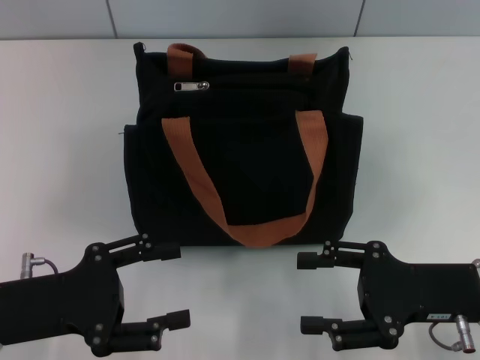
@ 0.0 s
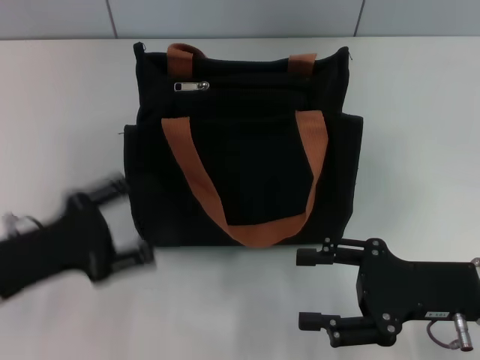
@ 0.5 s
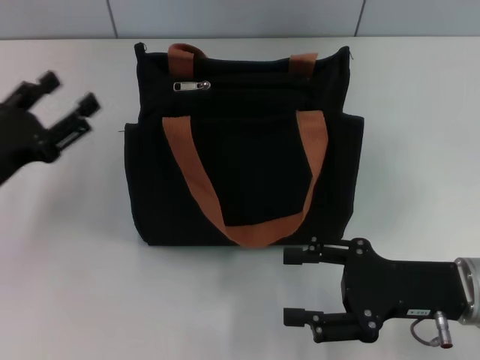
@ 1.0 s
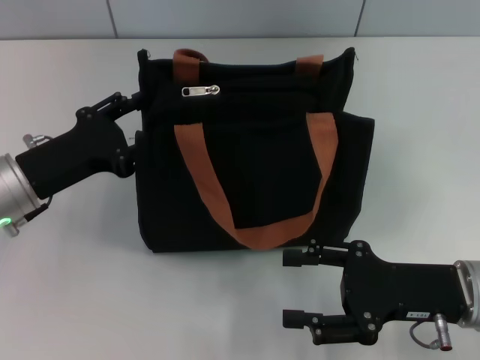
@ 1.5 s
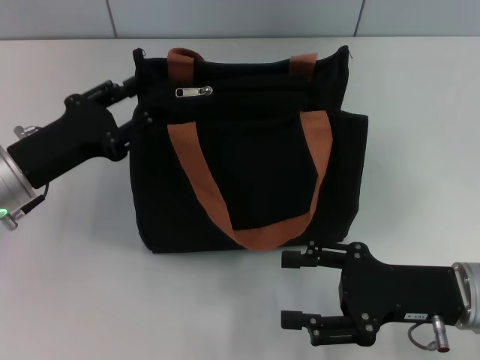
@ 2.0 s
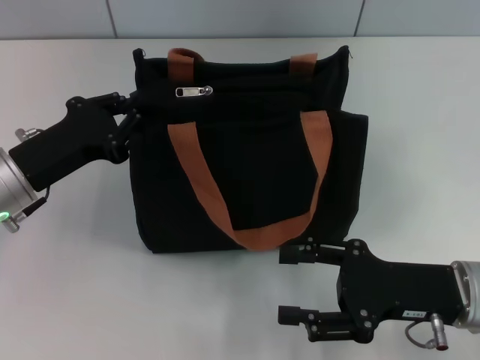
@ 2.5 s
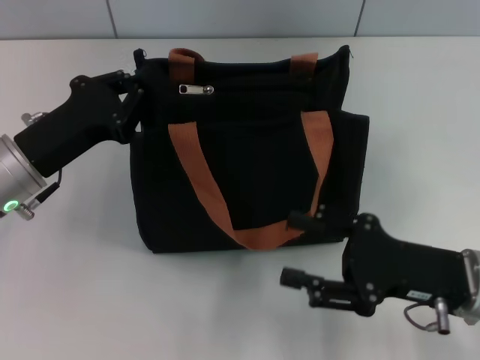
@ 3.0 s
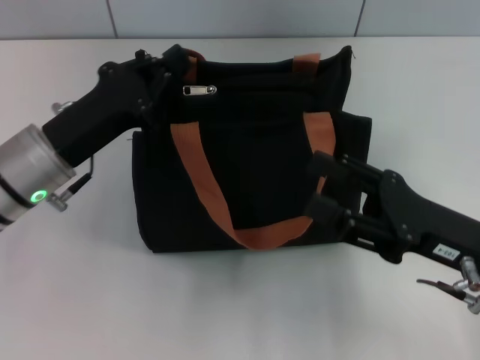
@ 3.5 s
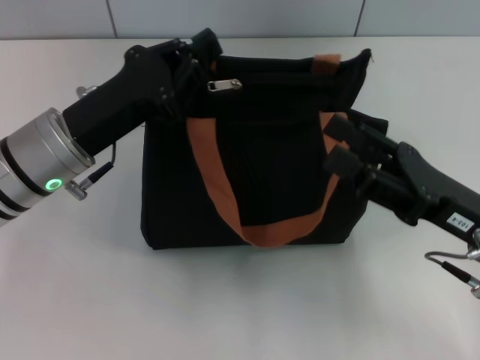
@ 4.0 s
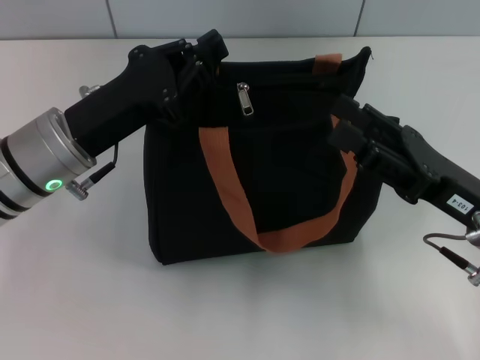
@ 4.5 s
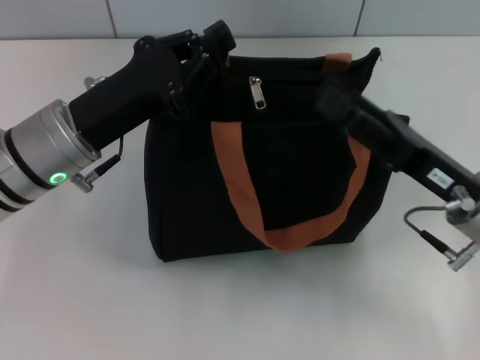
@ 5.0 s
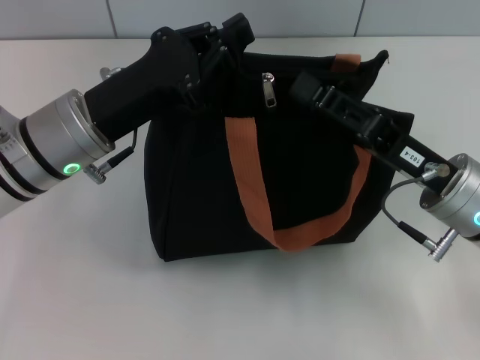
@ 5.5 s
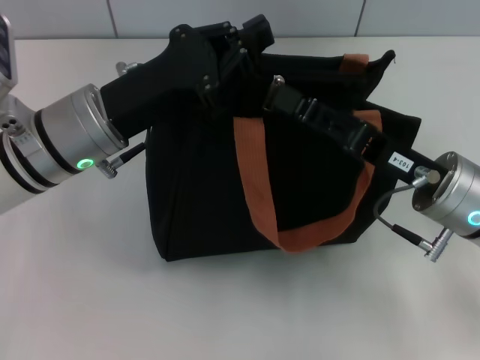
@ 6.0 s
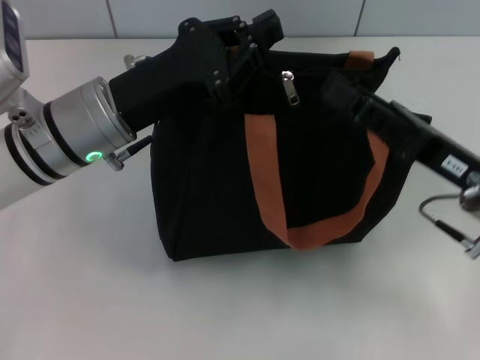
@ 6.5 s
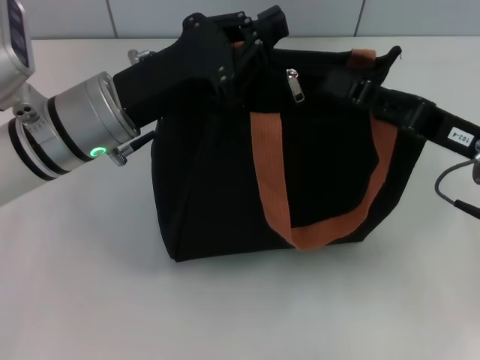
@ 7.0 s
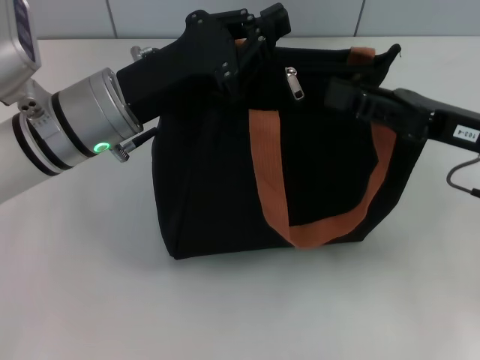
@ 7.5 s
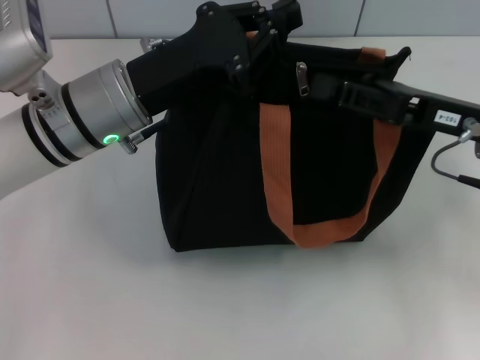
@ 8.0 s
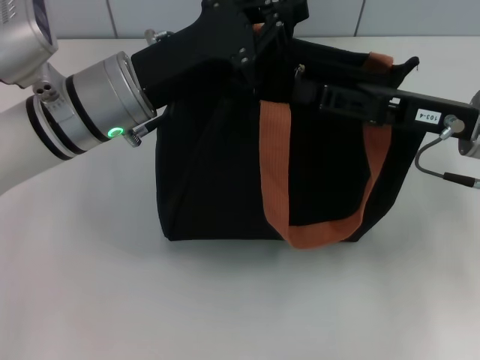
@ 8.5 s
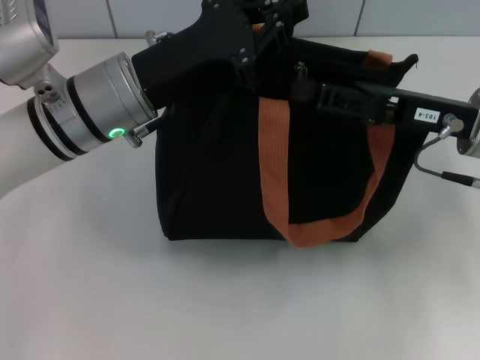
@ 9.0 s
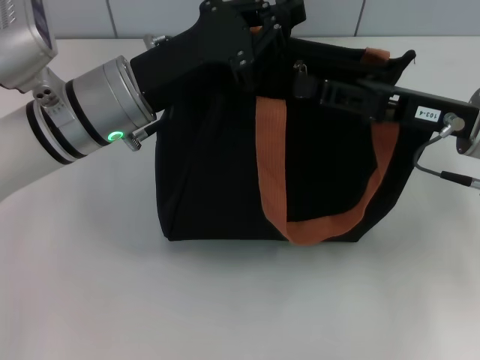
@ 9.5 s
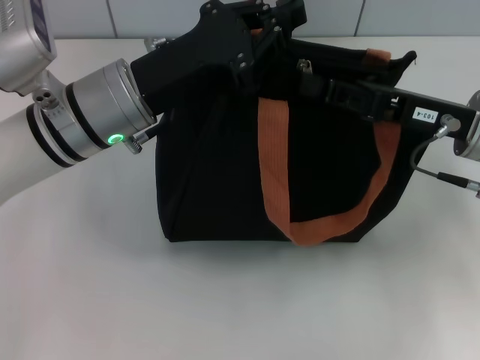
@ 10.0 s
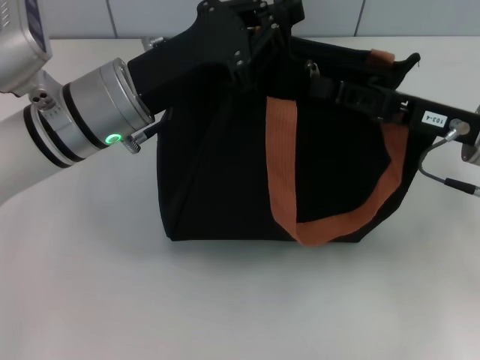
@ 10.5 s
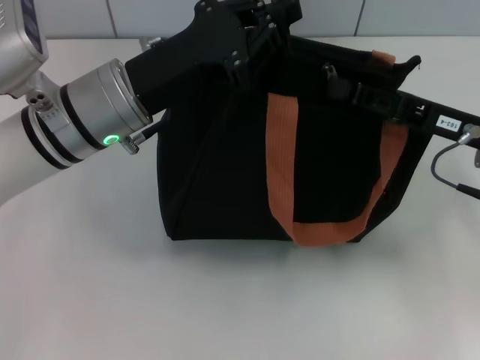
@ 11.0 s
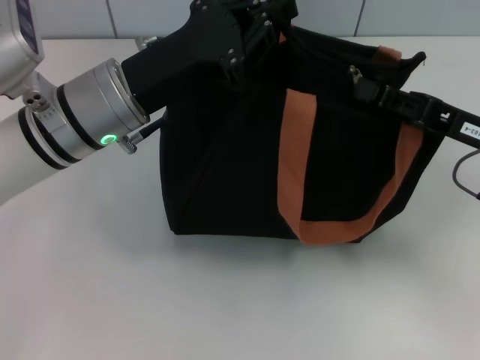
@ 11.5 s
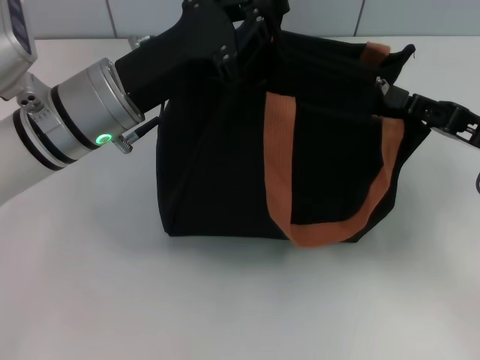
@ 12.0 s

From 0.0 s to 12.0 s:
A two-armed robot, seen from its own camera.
From 0.0 s to 2.0 s: The left gripper goes about 10 cm forward.
From 2.0 s to 4.0 s: The left gripper is displaced to the right by approximately 5 cm, and closes its fingers.
From 4.0 s to 6.0 s: The right gripper shifts by approximately 5 cm, and closes.
From 6.0 s to 8.0 s: The right gripper goes some 5 cm to the right.
From 8.0 s to 10.0 s: The right gripper closes.
From 10.0 s to 12.0 s: The right gripper moves to the right, approximately 5 cm.

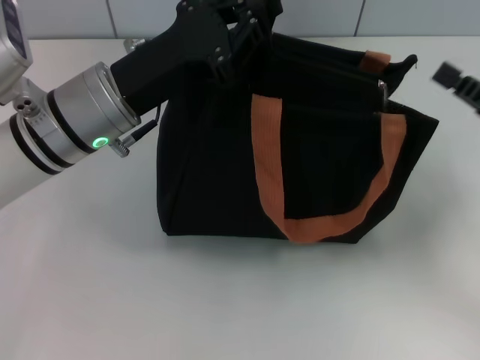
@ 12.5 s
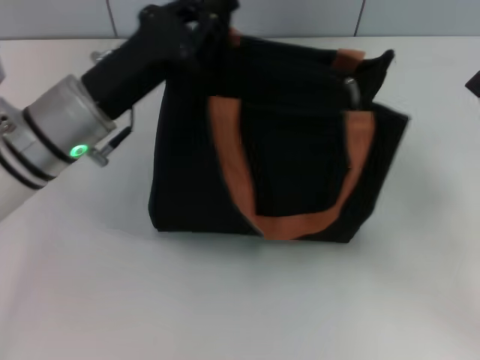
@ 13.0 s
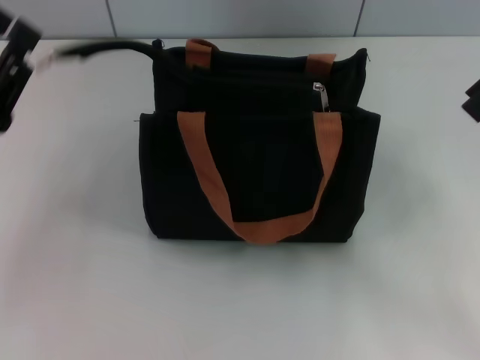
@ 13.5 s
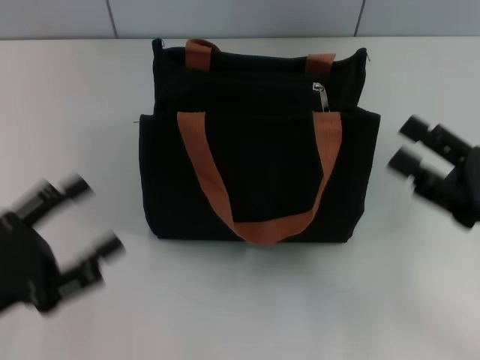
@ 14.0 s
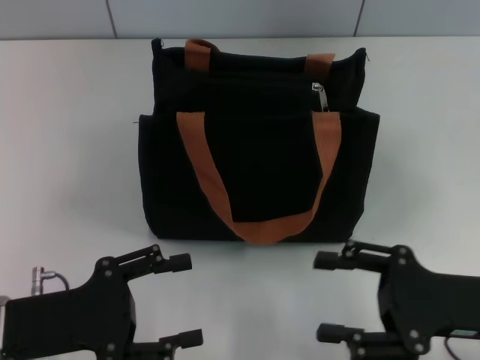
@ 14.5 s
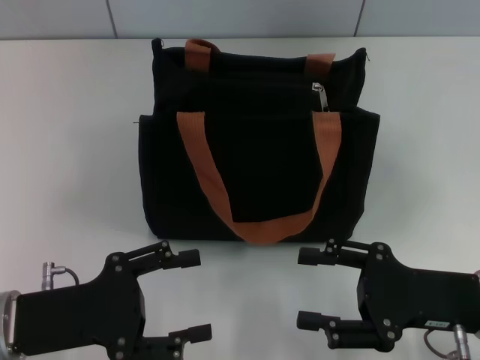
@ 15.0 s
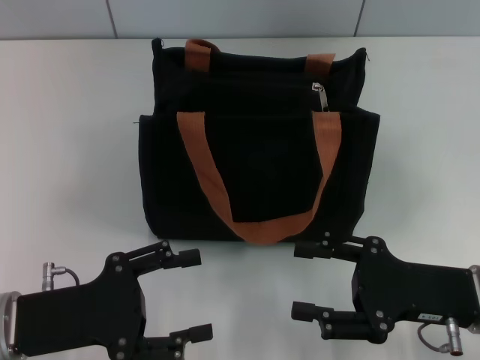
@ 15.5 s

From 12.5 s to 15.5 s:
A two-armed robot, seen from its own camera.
Step, from 12.5 s to 13.0 s: Grab the zipper with your left hand.
From 12.5 s to 14.0 s: The left gripper is displaced backward and to the left by roughly 20 cm, and opens its fingers; the right gripper ends up roughly 5 cm from where it was, and opens its fingers.
From 14.0 s to 15.5 s: The left gripper shifts roughly 5 cm to the right. The right gripper moves to the left, about 5 cm.

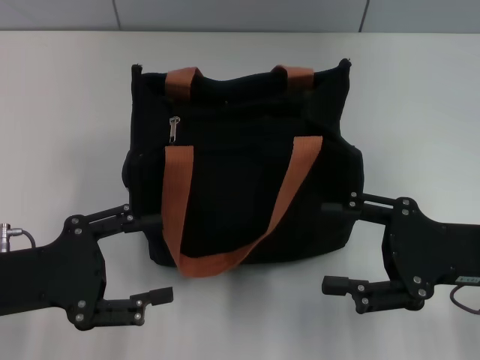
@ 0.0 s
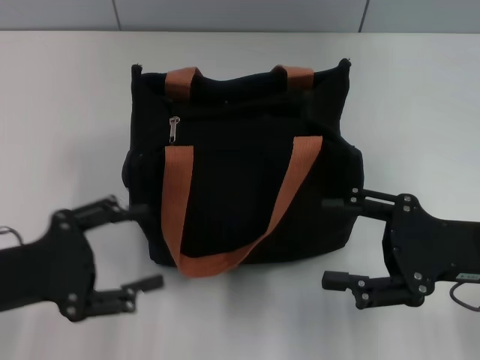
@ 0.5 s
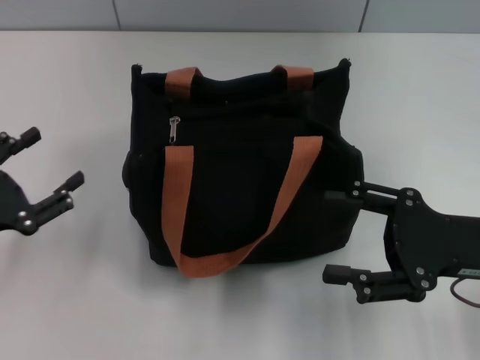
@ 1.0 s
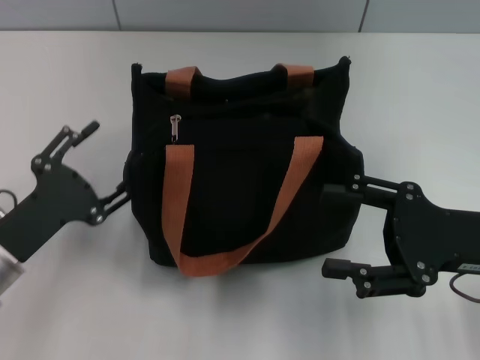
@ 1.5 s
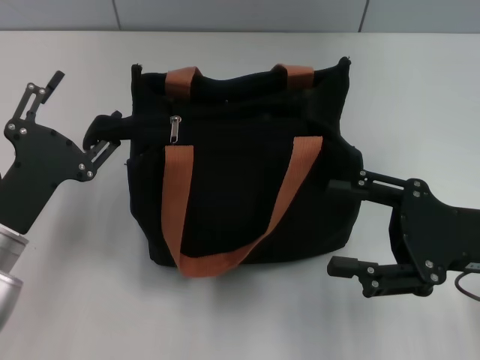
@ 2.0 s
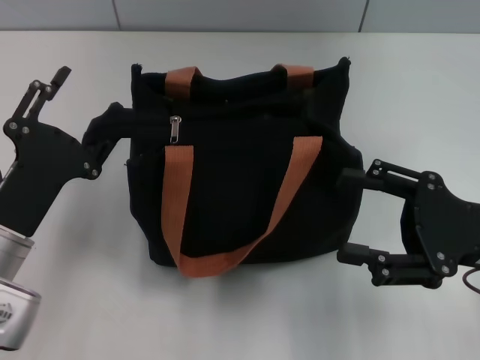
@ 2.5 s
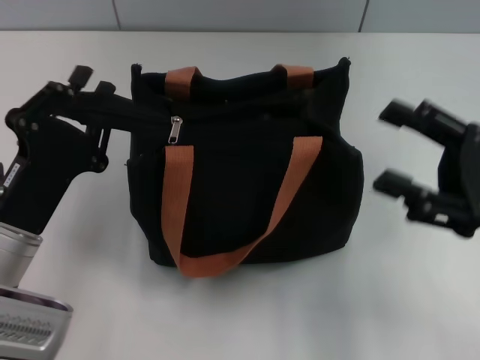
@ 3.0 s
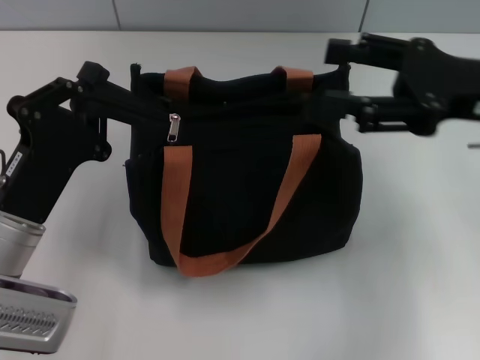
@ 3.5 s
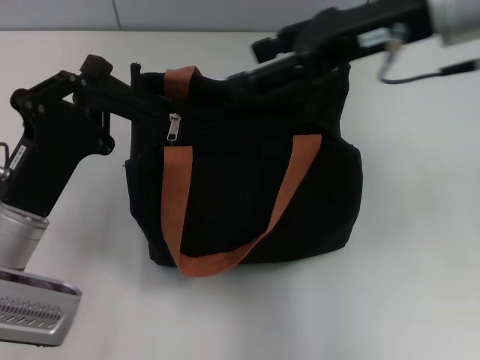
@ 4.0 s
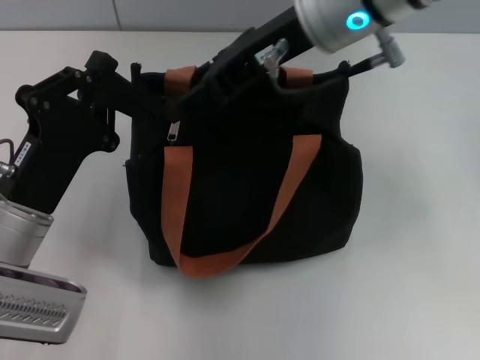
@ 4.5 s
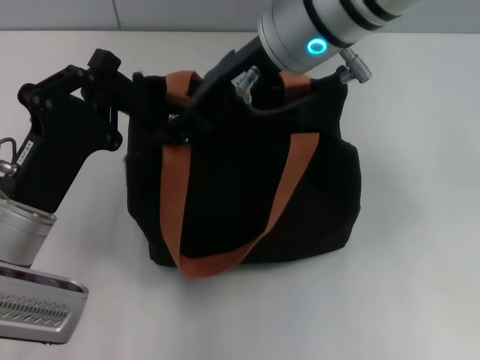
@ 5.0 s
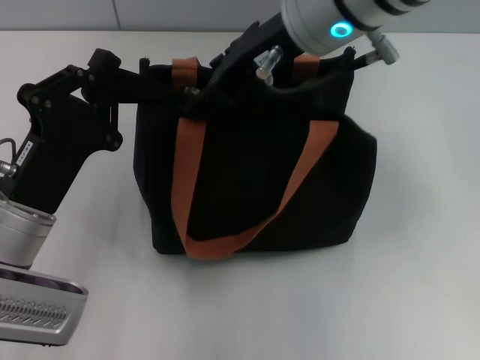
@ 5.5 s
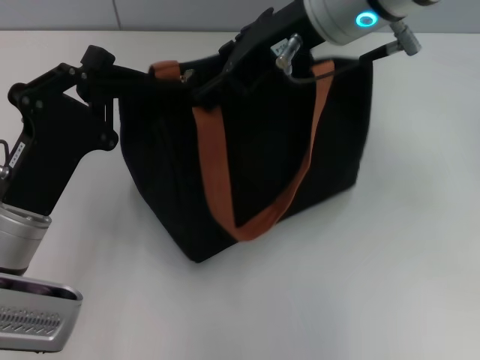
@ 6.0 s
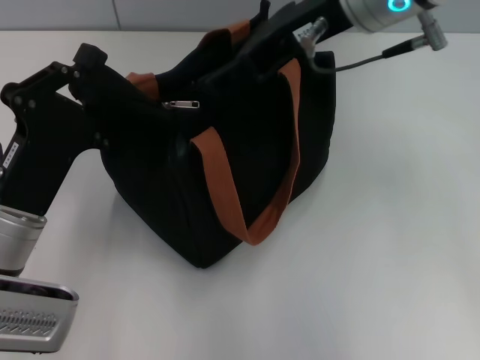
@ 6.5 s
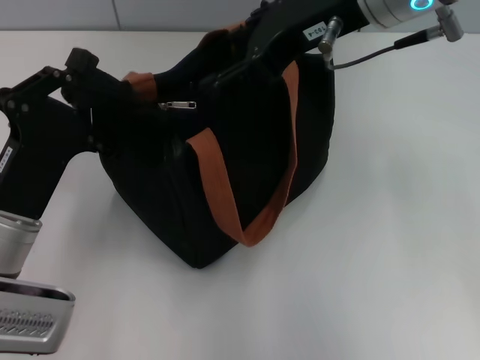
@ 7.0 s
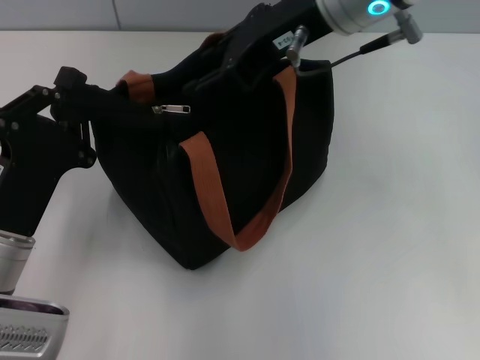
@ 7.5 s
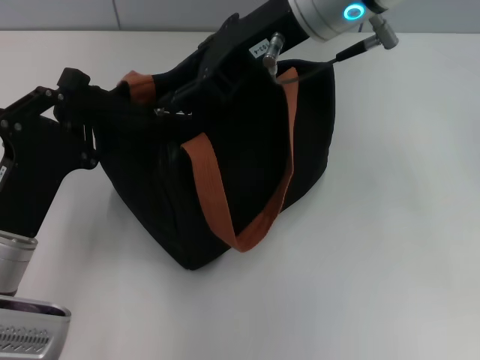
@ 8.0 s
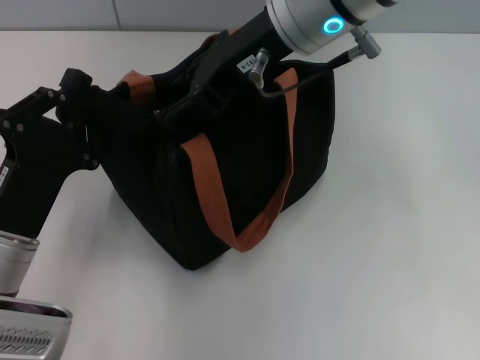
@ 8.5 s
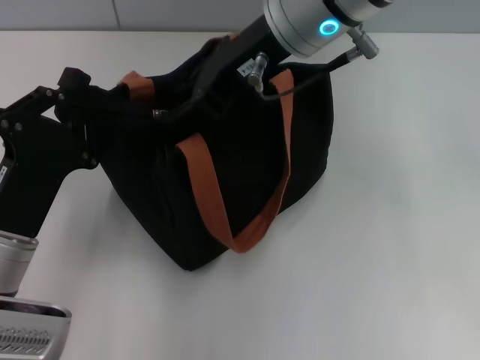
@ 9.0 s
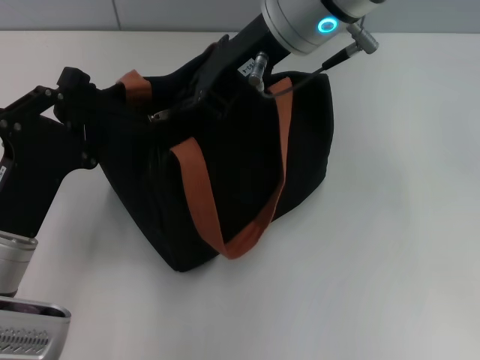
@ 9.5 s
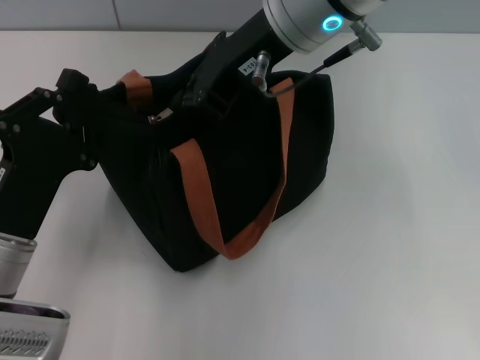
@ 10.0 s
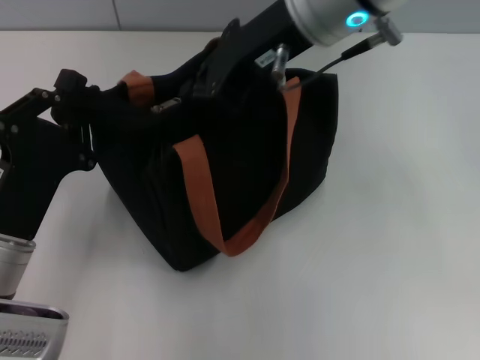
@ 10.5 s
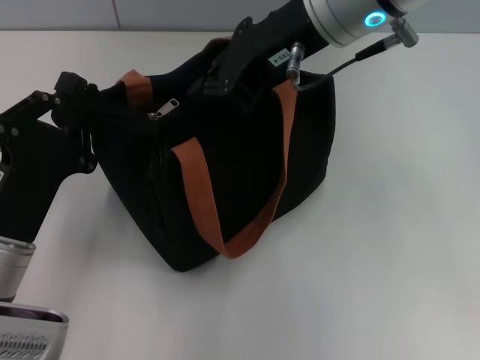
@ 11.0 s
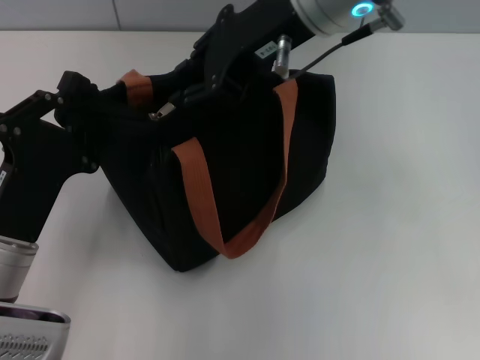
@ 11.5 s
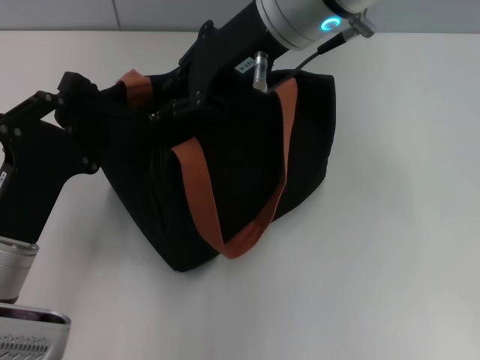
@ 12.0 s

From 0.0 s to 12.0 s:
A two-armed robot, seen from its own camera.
From 0.0 s to 2.0 s: The left gripper travels downward by roughly 5 cm.
From 2.0 s to 4.0 s: The left gripper closes its fingers. Meanwhile the right gripper heads upward, forward and to the left, covering about 25 cm.
From 4.0 s to 6.0 s: The right gripper moves to the left, about 10 cm.
From 6.0 s to 8.0 s: The right gripper closes.
From 8.0 s to 10.0 s: The right gripper closes up.
From 10.0 s to 12.0 s: The right gripper opens up.
